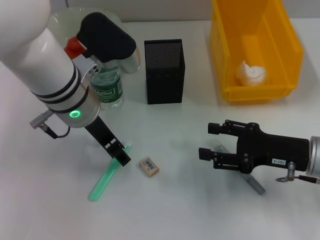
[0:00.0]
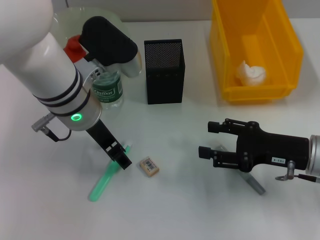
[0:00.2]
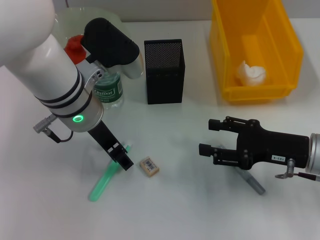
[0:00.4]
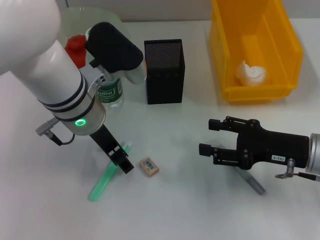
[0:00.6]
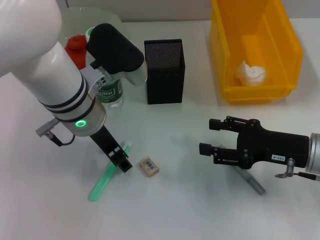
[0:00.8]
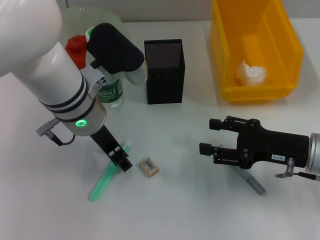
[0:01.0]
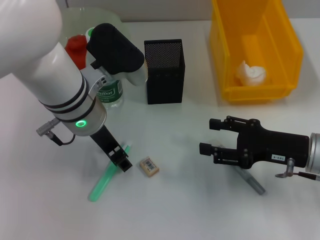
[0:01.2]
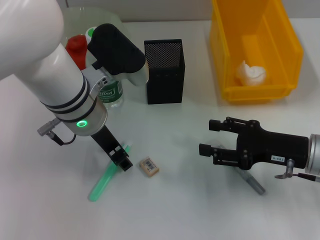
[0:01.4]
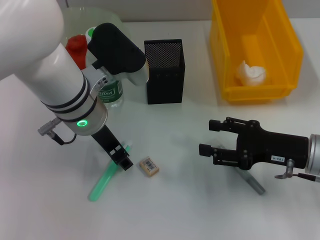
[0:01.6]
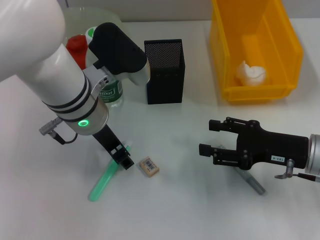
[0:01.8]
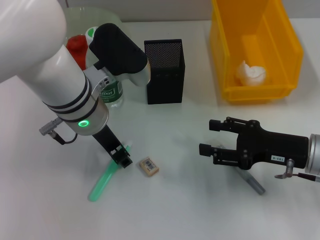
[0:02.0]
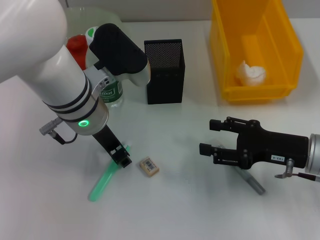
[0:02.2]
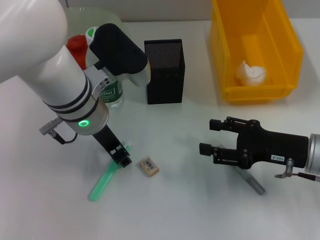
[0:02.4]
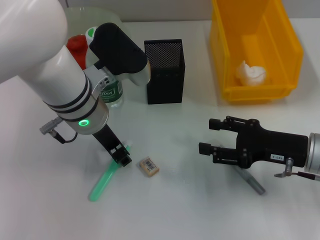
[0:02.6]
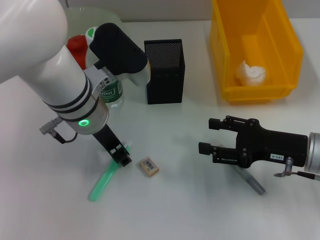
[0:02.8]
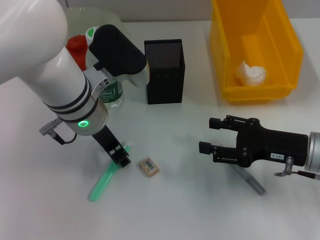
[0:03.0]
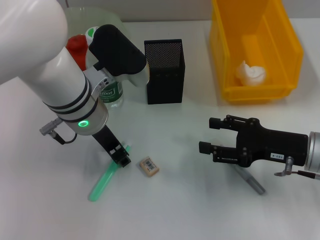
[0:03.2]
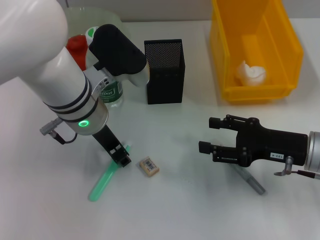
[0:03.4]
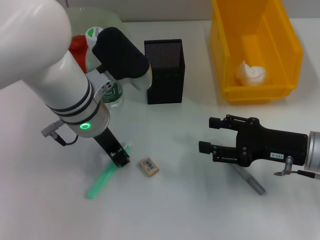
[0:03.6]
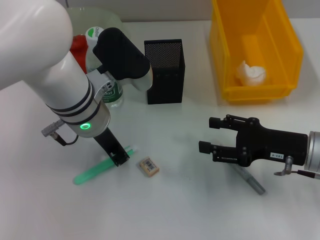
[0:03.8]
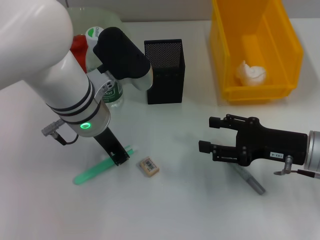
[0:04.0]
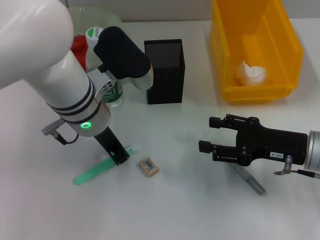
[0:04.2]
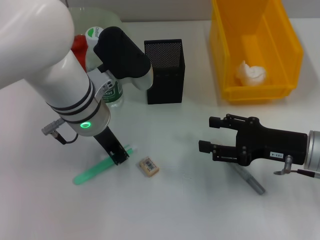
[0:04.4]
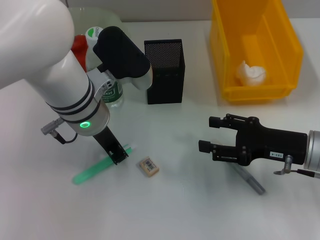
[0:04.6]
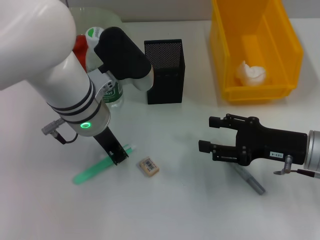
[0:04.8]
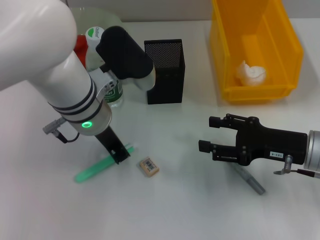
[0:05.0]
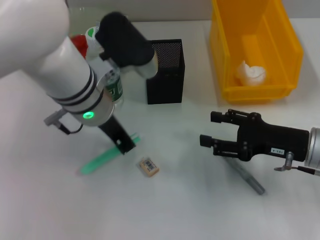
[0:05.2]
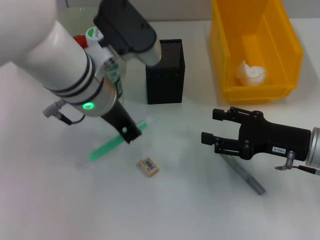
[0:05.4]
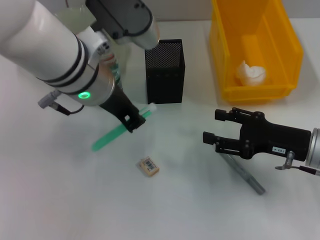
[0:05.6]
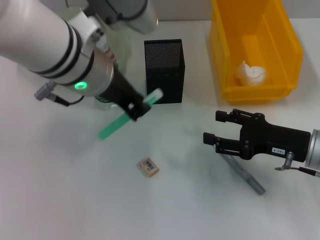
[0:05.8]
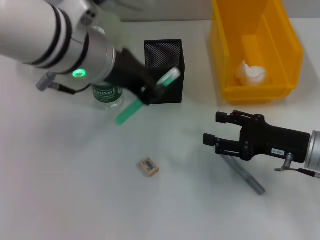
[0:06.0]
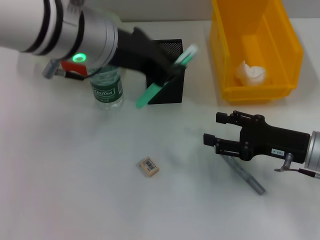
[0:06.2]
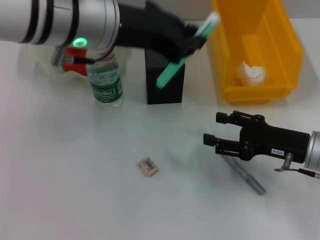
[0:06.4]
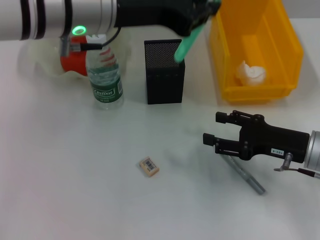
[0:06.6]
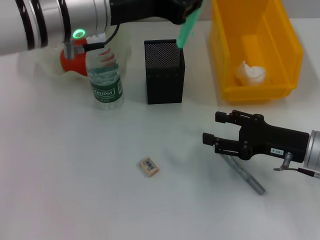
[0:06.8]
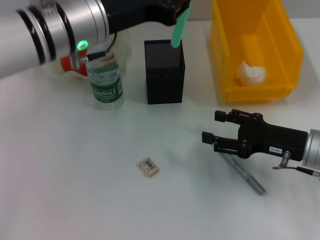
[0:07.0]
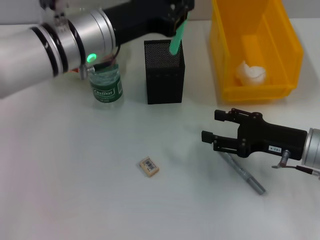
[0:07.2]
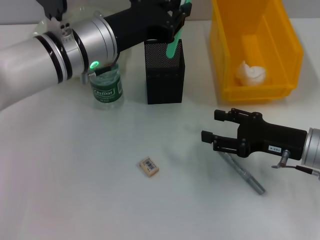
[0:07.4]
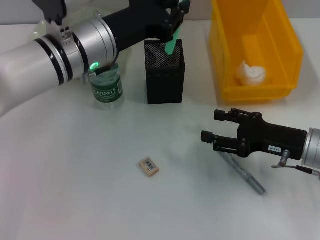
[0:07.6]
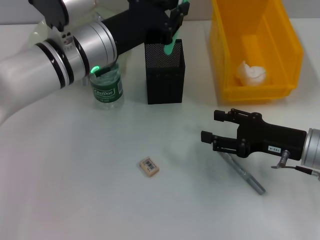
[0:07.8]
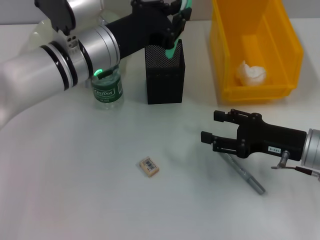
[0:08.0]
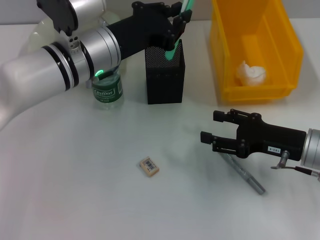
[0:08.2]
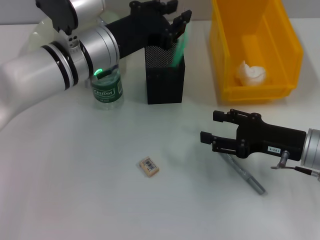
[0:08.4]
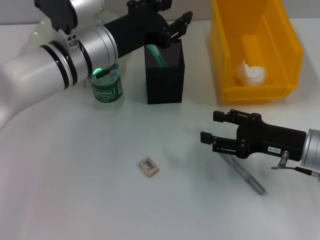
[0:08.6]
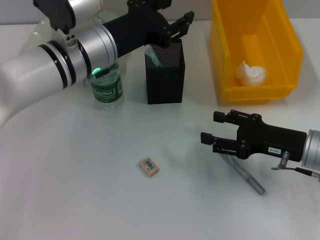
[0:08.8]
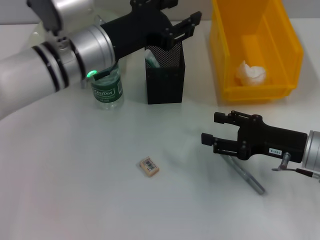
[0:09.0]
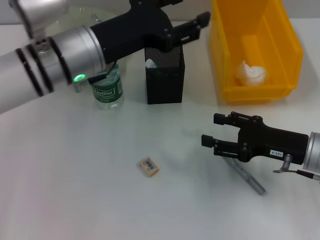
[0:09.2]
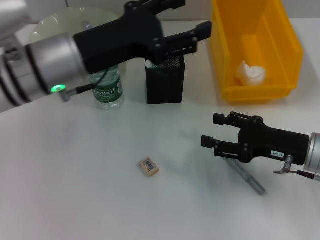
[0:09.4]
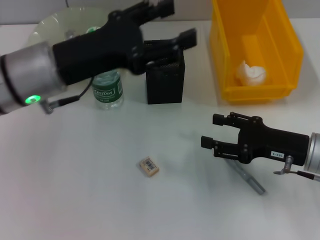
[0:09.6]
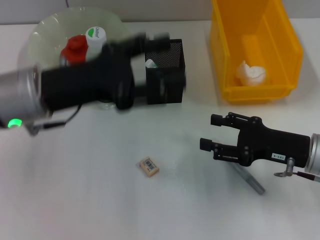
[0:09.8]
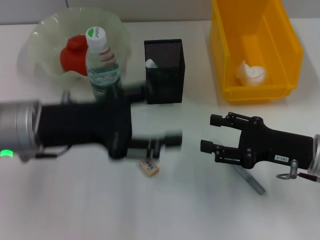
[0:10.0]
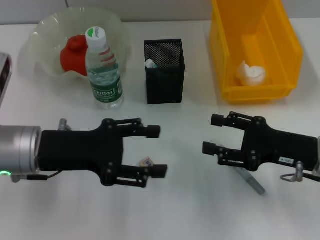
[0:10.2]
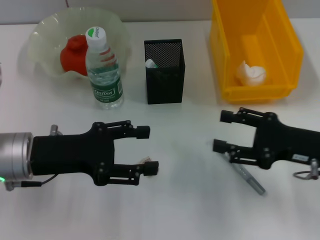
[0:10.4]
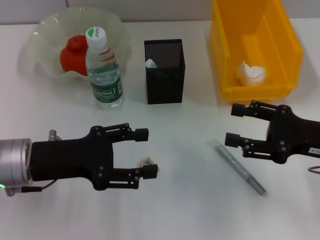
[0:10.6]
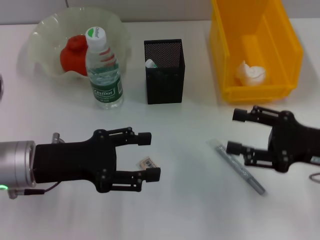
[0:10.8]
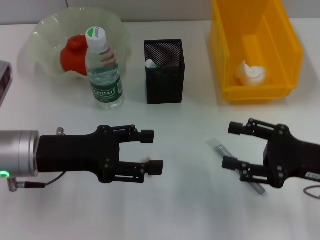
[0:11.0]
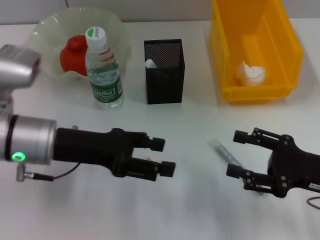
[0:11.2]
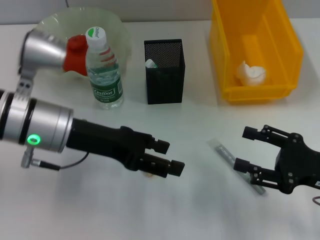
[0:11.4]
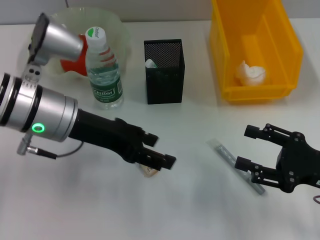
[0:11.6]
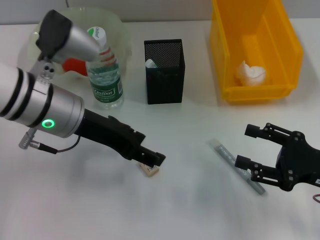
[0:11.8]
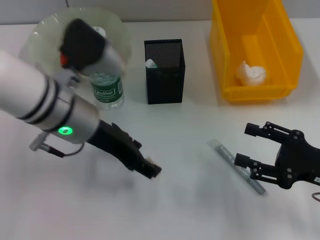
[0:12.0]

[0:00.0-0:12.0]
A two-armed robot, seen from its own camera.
Step, 0:00.0 to 0:04.2: Grab the blue utility knife with the left hand.
Step, 0:04.6 to 0:09.0: Place the blue utility knife into the pen holder with the left hand.
0:00.0 to 0:01.6: The grippers move only a little.
0:01.6 to 0:03.0: Neither gripper changes place.
0:03.0 to 0:04.4: The left gripper closes up.
0:04.4 to 0:06.0: The left gripper moves upward, some 10 cm.
0:06.0 to 0:07.6: The left gripper travels downward by about 5 cm.
0:07.6 to 0:09.0: The left gripper opens up.
0:09.0 to 0:10.4: The left gripper goes approximately 15 cm to the left, backward and downward.
0:10.4 to 0:12.0: The left gripper is displaced to the right, forward and upward by some 10 cm.

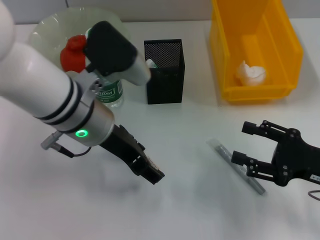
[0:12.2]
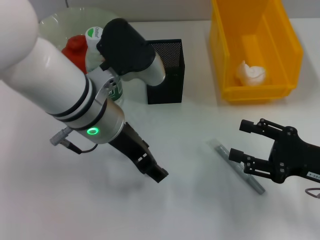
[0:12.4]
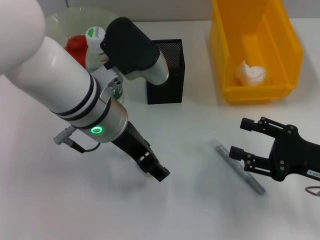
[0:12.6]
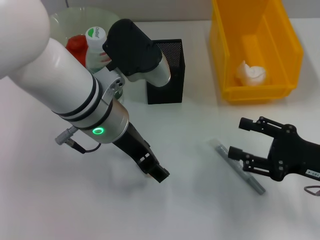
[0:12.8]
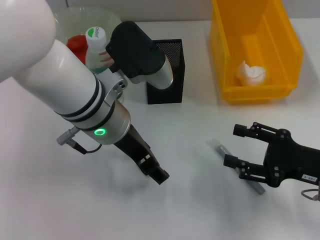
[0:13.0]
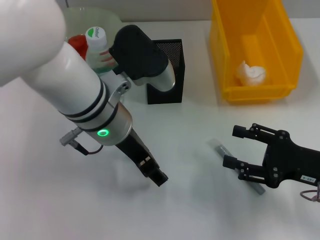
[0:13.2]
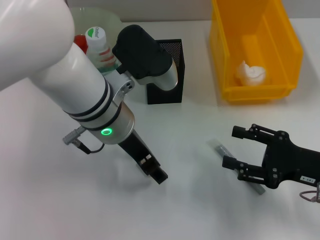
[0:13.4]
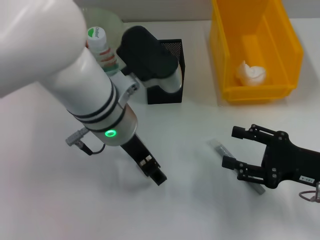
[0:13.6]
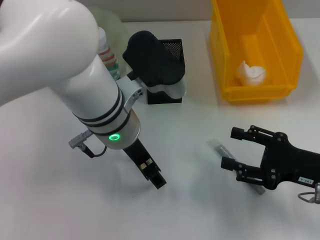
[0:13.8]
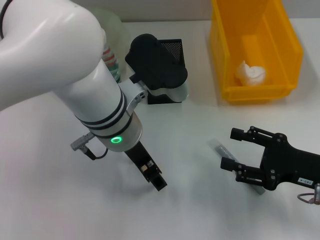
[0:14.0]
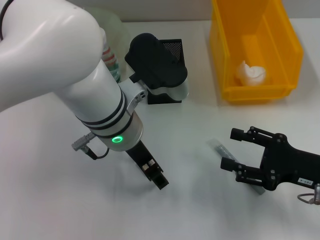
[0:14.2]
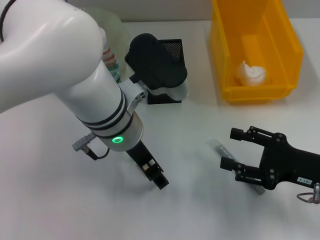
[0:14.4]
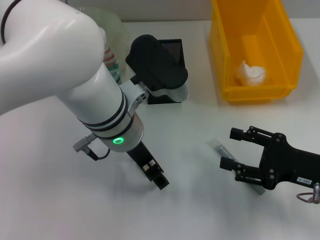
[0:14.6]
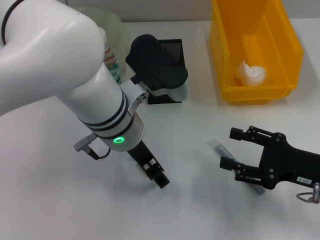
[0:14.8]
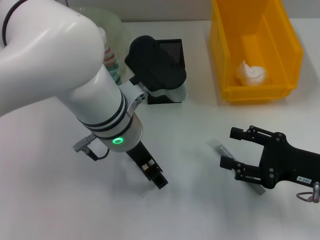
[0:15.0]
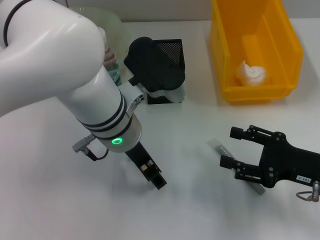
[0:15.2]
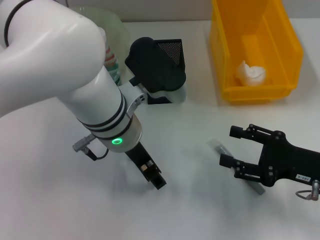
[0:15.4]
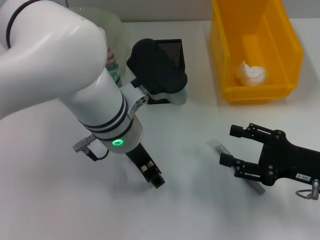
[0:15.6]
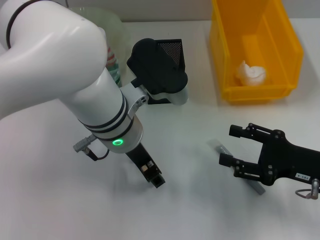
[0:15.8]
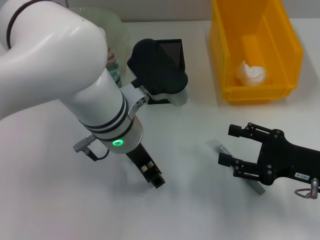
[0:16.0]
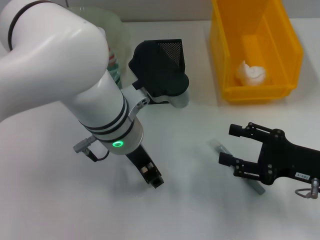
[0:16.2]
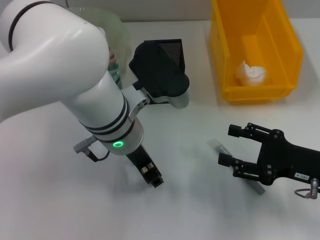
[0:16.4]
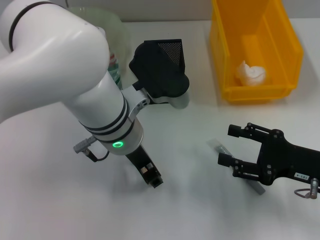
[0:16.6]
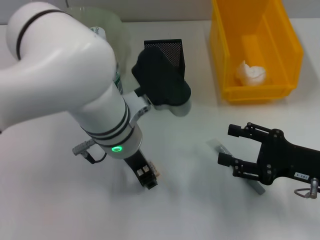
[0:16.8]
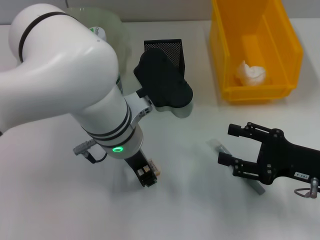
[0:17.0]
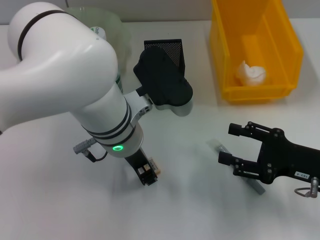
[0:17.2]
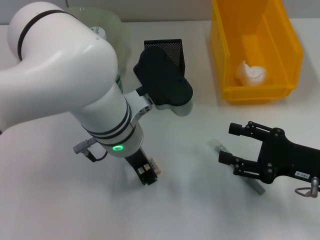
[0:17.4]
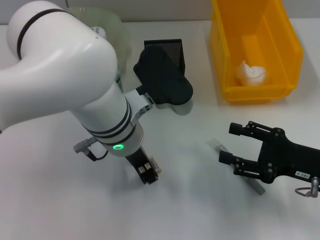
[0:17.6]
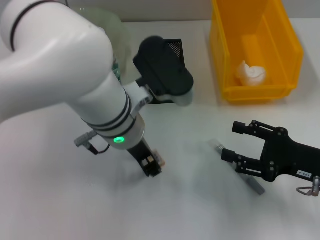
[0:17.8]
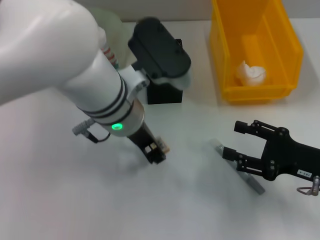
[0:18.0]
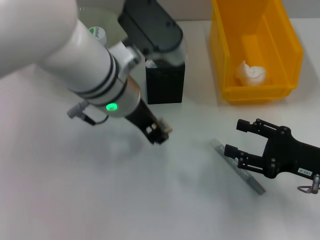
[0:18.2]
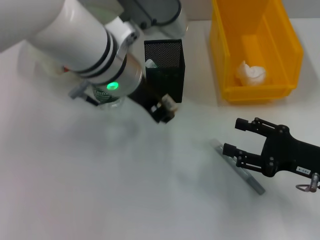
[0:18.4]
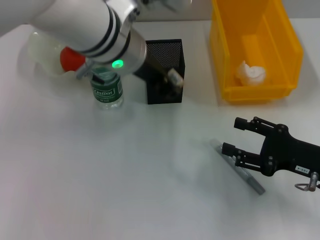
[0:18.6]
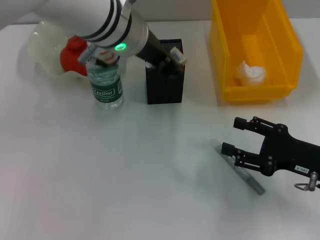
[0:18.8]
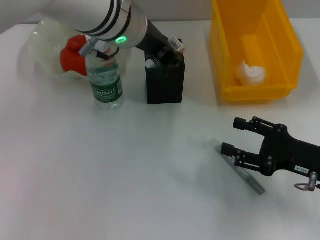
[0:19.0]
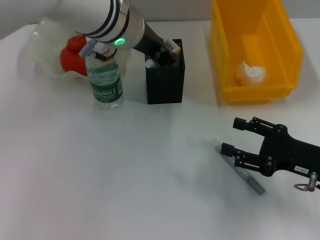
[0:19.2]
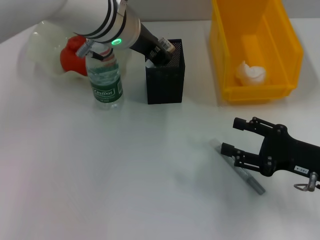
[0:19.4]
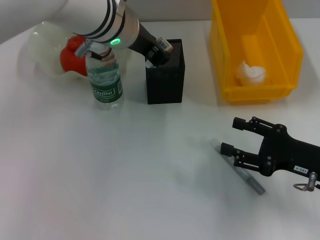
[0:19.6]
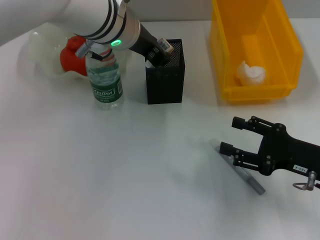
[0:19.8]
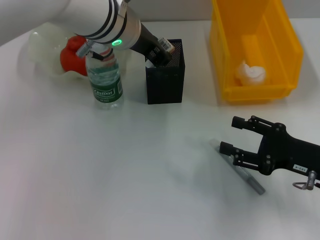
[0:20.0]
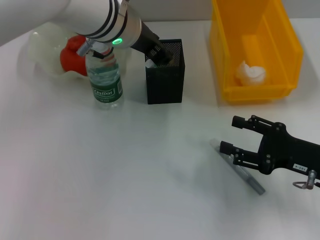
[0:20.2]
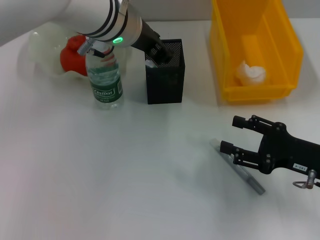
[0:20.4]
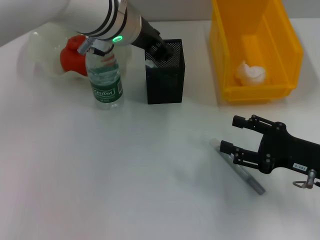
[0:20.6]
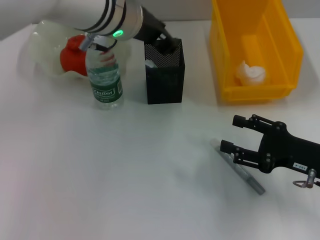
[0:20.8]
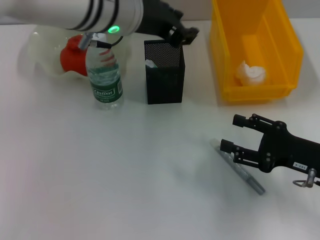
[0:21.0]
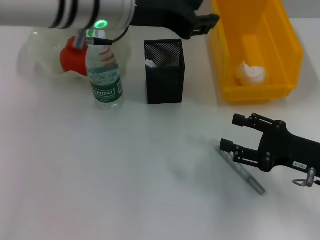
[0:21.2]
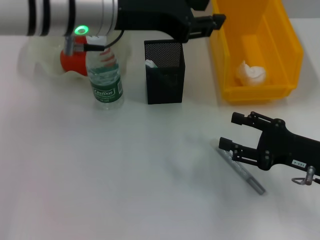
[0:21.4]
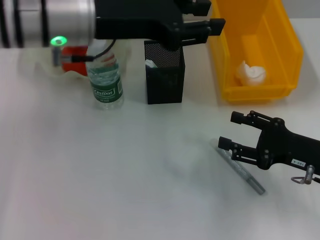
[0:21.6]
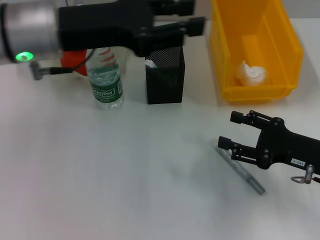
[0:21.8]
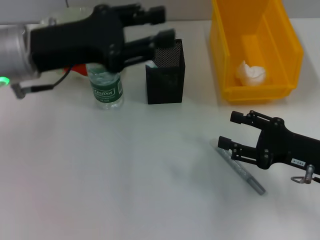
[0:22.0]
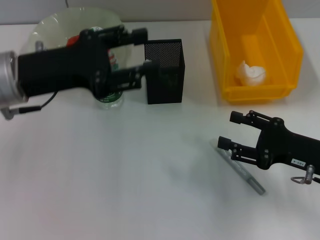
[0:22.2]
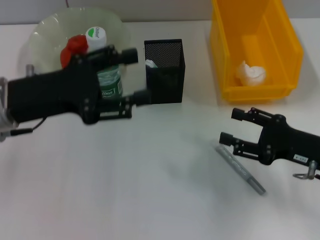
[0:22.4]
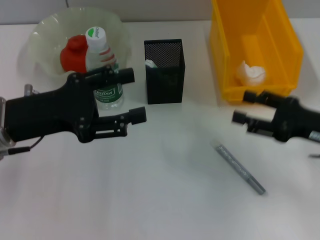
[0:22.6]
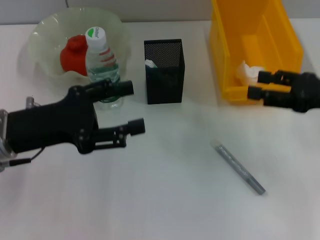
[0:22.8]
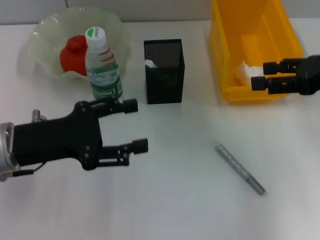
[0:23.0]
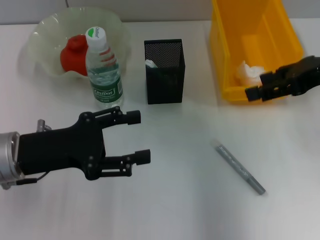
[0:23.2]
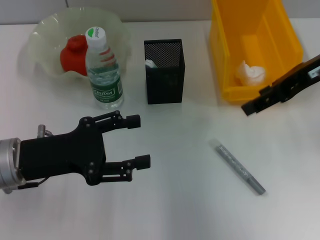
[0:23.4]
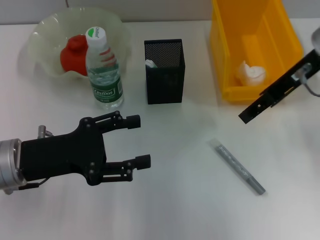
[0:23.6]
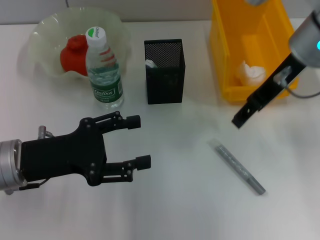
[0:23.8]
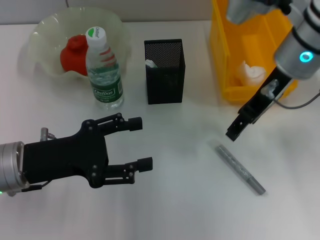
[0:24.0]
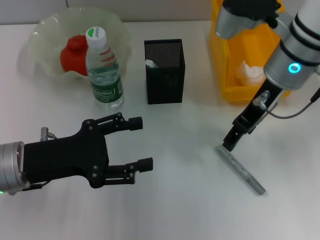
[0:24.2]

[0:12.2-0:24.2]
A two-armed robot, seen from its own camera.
Step, 0:12.2 to 0:17.0: Grab the eraser with the left hand.
Step, 0:17.2 to 0:20.6: Place the eraser into the pen holder with the left hand.
0:13.8 to 0:16.6: Neither gripper changes place.
0:16.6 to 0:18.2: The left gripper changes place by about 5 cm.
0:18.2 to 0:19.8: The left gripper shifts about 5 cm forward.
0:19.8 to 0:21.2: The left gripper changes place by about 5 cm.
0:21.2 to 0:22.6: The right gripper changes place by roughly 5 cm. The left gripper goes roughly 20 cm to the left, downward and backward, and opens.
0:22.6 to 0:24.2: The left gripper shifts by roughly 5 cm; the right gripper travels to the left, forward and upward by approximately 20 cm.
